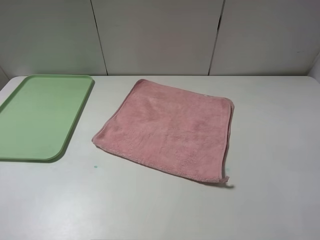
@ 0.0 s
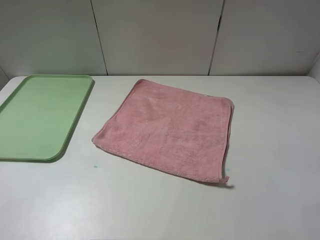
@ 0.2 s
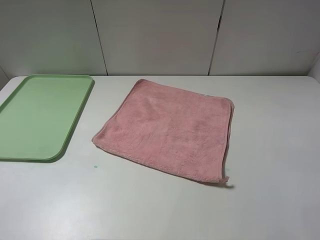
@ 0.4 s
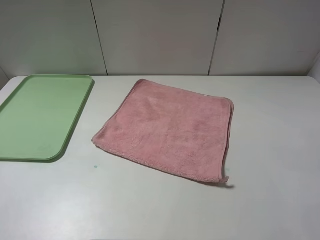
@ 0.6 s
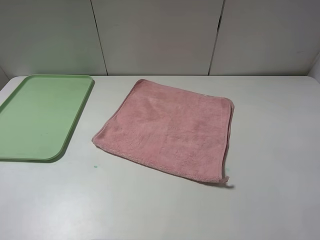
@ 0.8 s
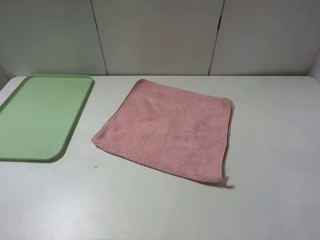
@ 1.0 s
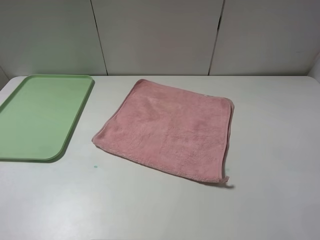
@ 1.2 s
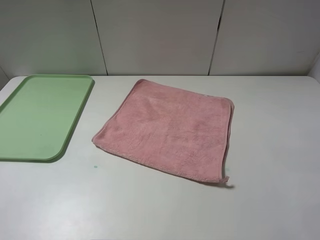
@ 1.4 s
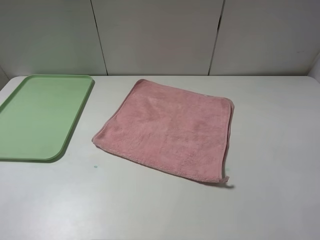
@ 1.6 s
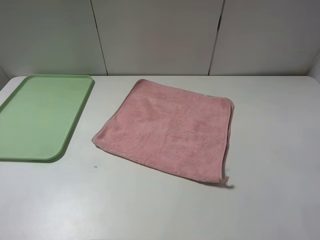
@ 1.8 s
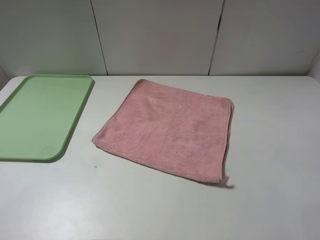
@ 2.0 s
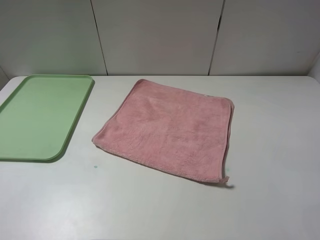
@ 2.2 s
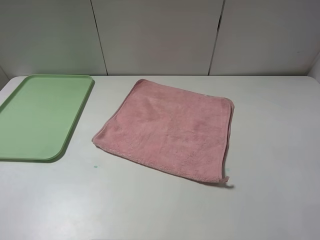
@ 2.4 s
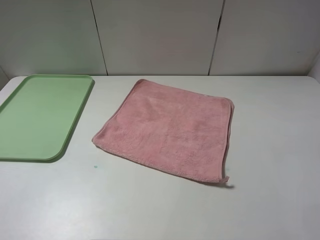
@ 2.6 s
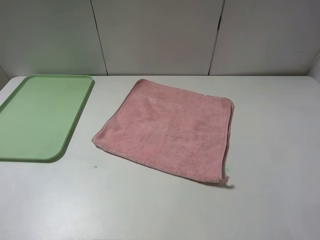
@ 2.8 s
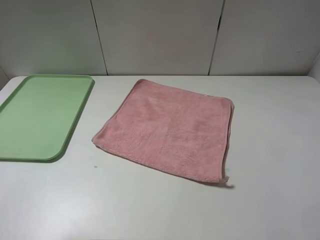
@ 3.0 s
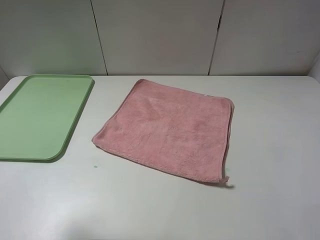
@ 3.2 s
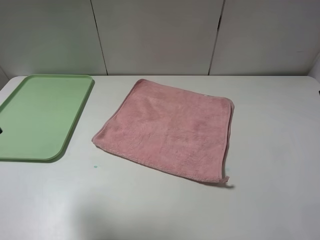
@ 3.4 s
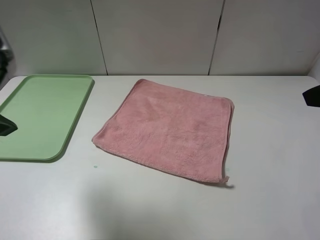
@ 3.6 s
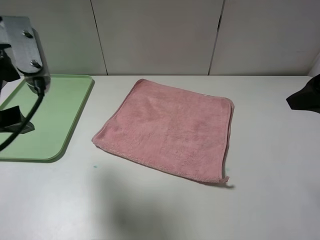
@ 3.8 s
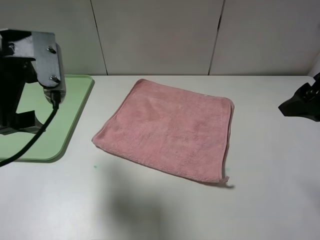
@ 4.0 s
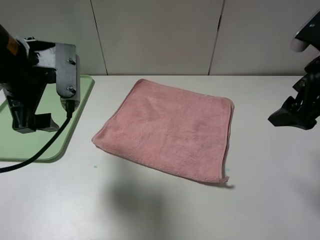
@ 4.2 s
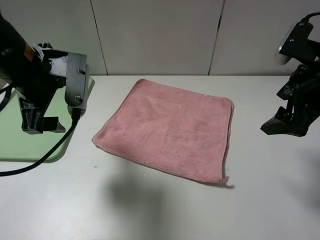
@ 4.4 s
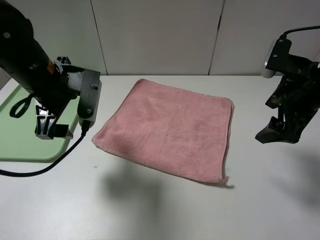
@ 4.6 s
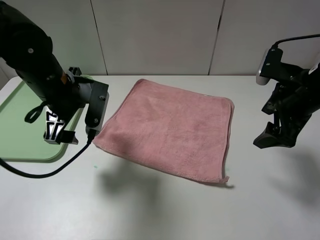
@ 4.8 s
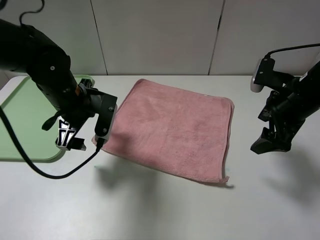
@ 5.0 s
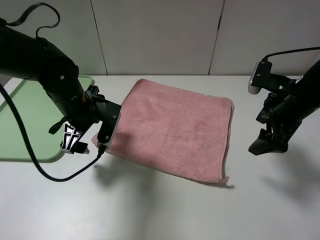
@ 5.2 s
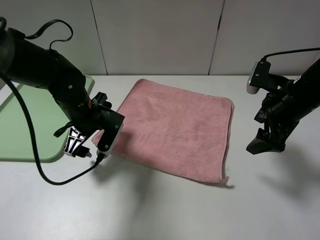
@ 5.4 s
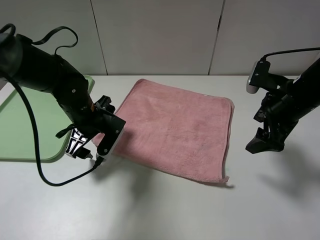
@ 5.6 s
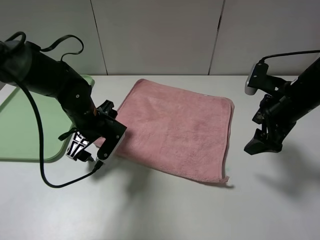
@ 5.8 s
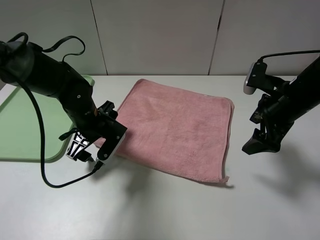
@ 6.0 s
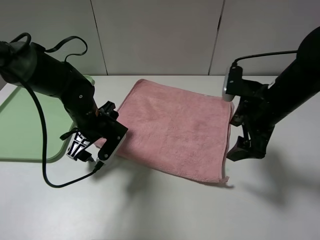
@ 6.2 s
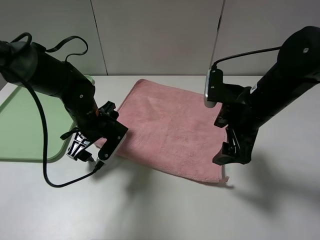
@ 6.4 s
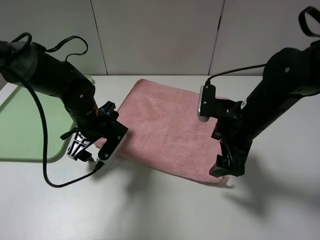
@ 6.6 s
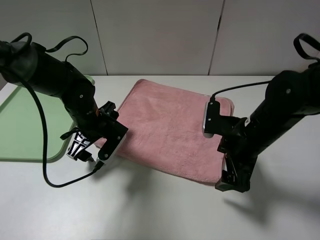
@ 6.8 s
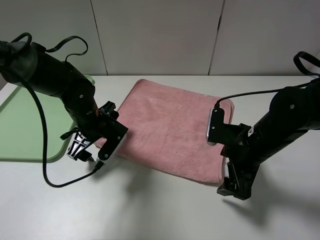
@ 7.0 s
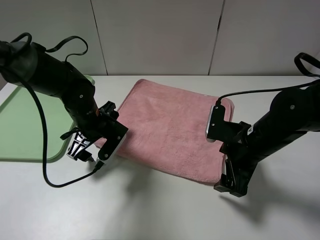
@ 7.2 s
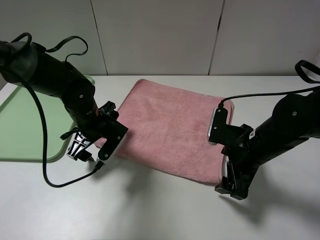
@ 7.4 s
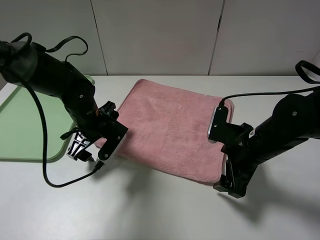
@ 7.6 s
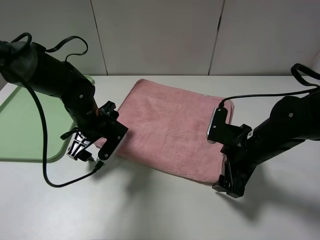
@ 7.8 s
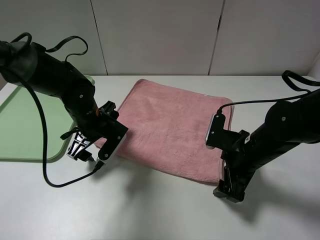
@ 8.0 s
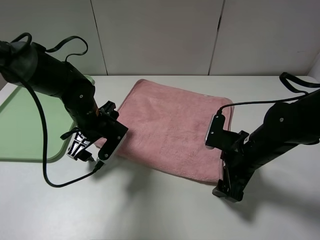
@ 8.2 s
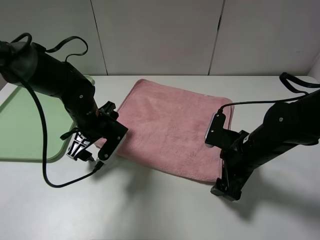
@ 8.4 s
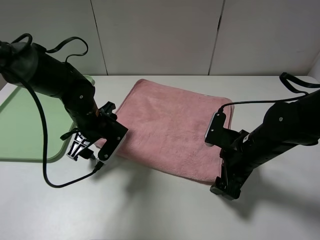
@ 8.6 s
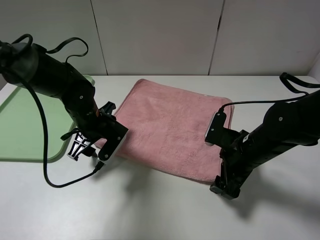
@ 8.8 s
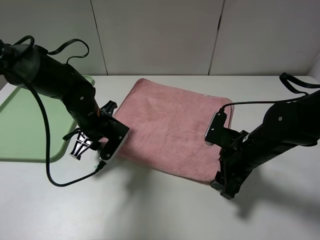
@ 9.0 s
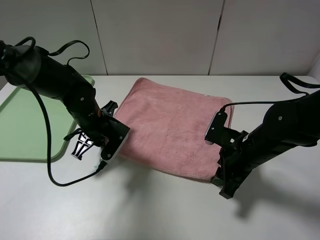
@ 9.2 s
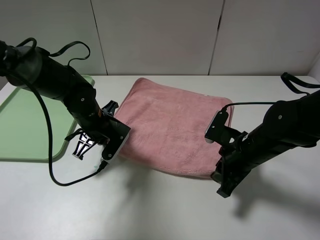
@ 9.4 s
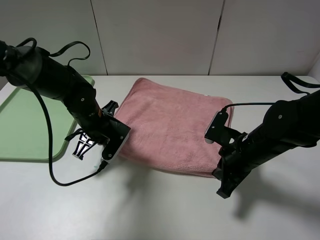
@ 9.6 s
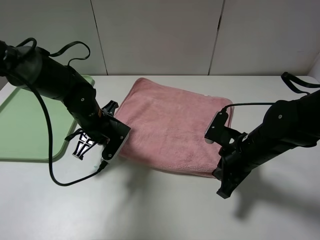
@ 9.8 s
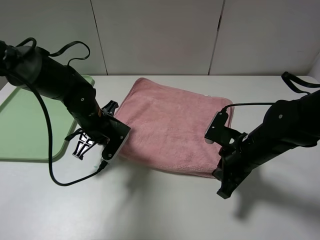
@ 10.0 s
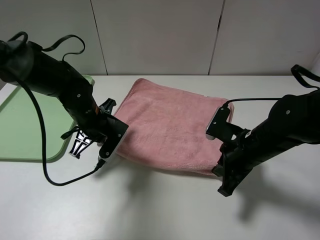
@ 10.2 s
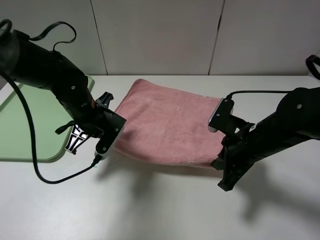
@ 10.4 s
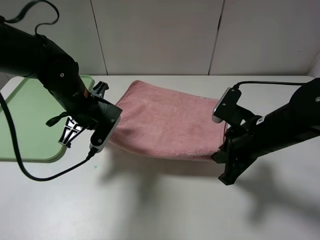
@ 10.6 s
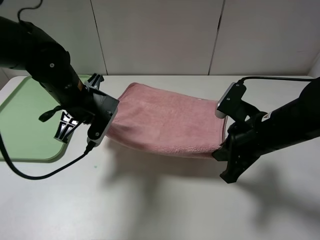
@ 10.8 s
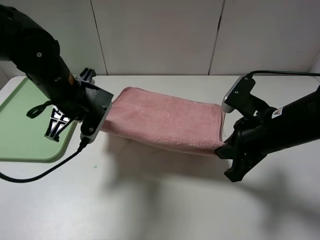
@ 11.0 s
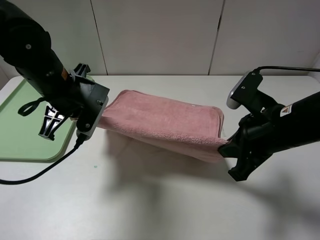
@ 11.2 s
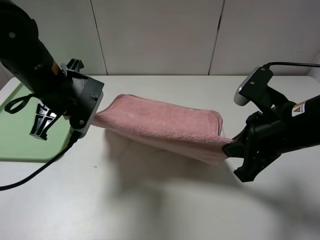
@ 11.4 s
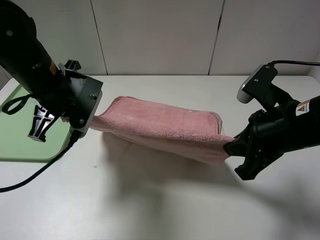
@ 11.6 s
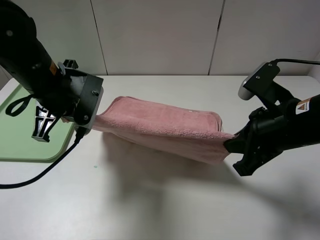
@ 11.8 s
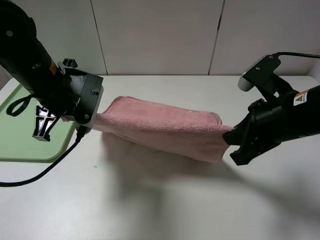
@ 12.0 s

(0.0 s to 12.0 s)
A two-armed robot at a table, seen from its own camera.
3.0 s - 4.4 s: The right gripper shifts some 20 cm forward and downward, while the left gripper goes roughly 20 cm forward, to the right and downward.
4.4 s - 6.0 s: The right gripper moves downward, about 5 cm; the left gripper shifts some 15 cm downward.
6.0 s - 7.6 s: The right gripper moves downward, to the left and backward, about 10 cm.
7.6 s - 9.0 s: The left gripper closes up.
9.0 s - 10.4 s: The right gripper closes its fingers. The left gripper closes its fingers.
10.4 s - 12.0 s: The two grippers go roughly 10 cm upward.

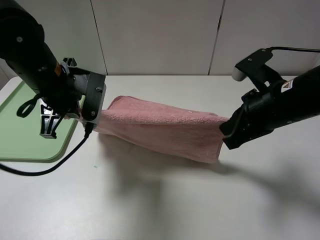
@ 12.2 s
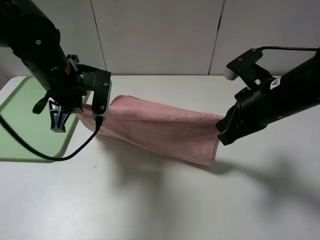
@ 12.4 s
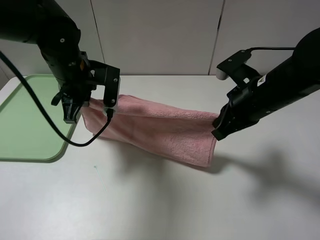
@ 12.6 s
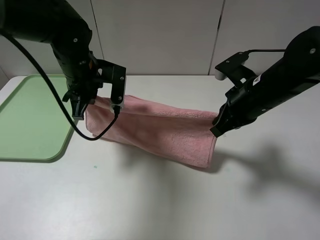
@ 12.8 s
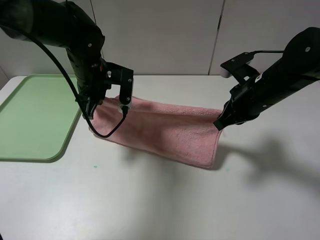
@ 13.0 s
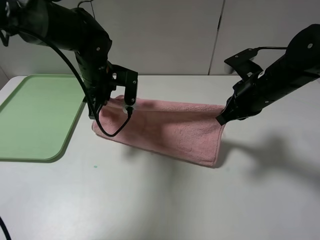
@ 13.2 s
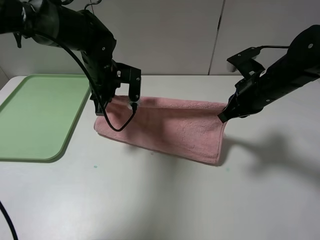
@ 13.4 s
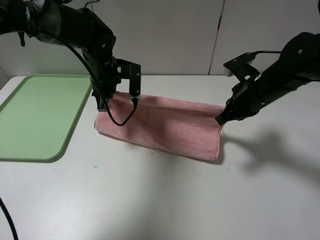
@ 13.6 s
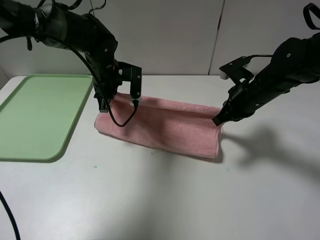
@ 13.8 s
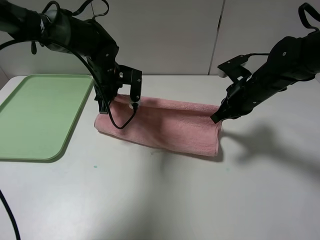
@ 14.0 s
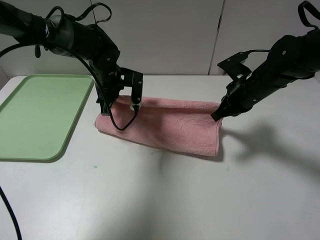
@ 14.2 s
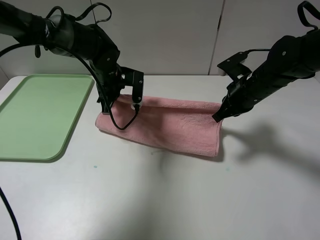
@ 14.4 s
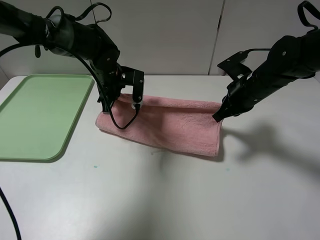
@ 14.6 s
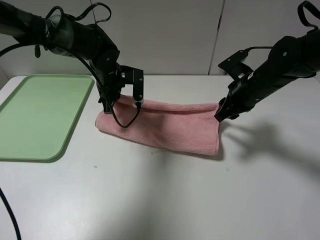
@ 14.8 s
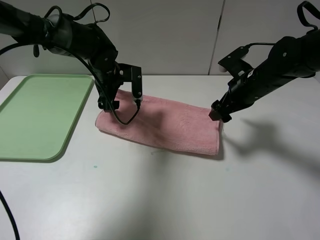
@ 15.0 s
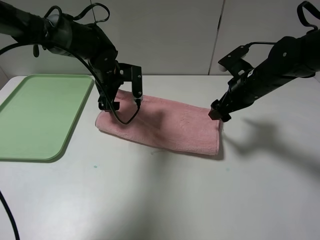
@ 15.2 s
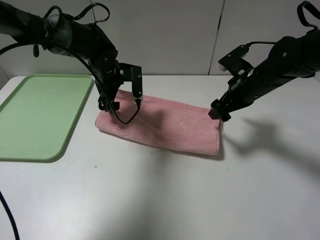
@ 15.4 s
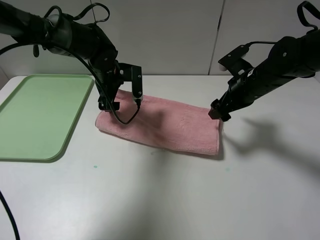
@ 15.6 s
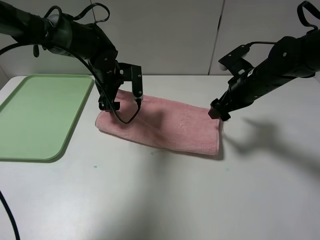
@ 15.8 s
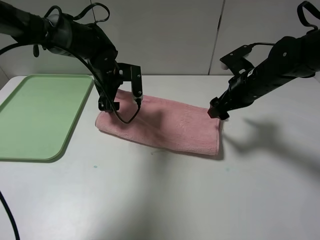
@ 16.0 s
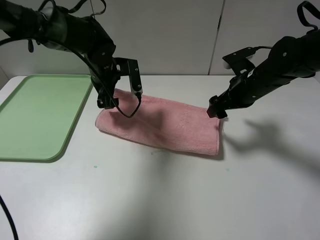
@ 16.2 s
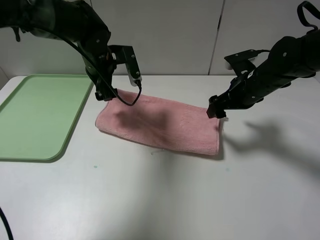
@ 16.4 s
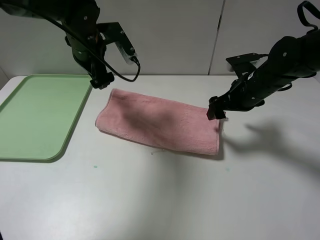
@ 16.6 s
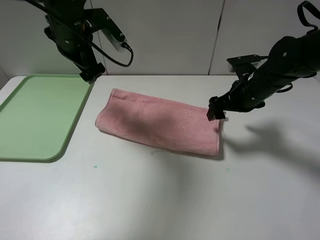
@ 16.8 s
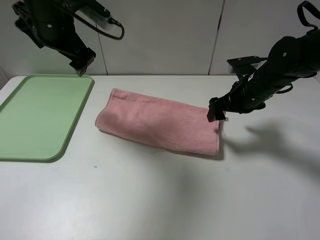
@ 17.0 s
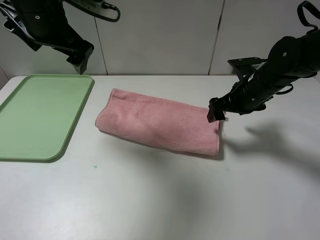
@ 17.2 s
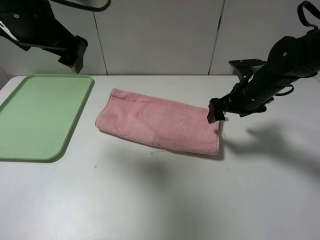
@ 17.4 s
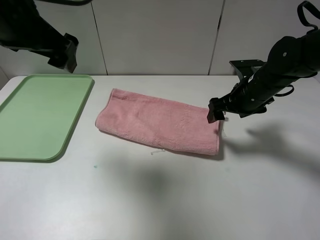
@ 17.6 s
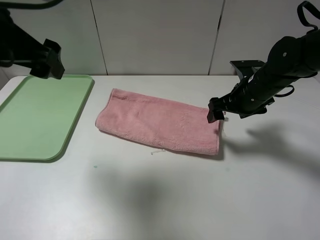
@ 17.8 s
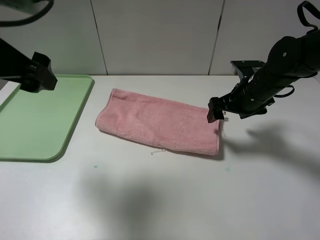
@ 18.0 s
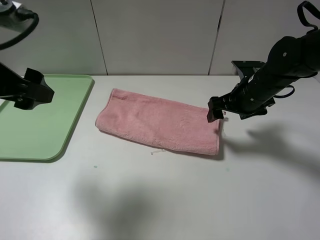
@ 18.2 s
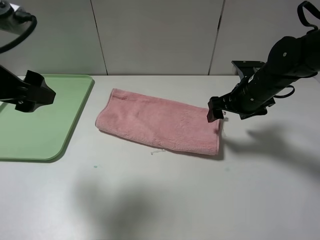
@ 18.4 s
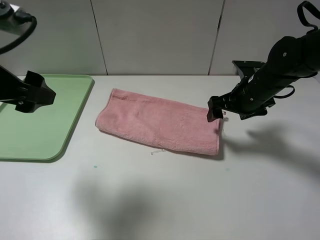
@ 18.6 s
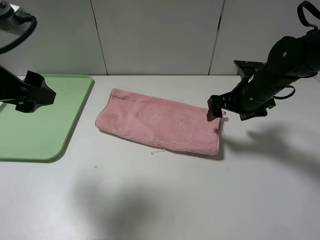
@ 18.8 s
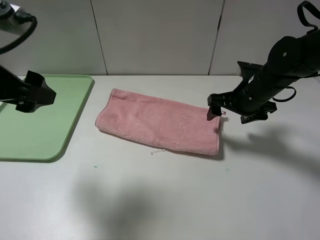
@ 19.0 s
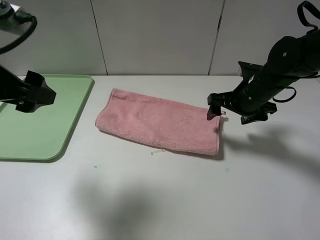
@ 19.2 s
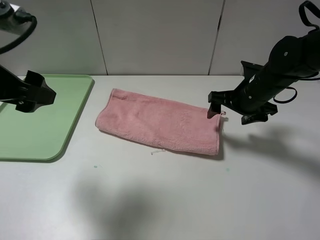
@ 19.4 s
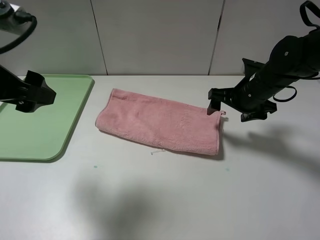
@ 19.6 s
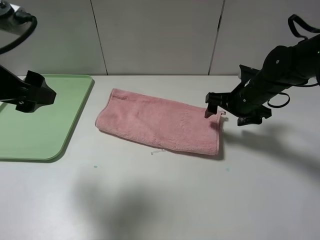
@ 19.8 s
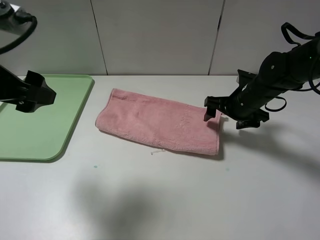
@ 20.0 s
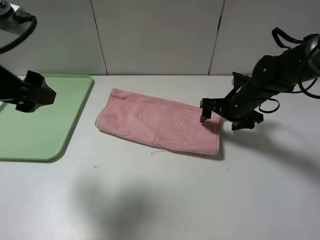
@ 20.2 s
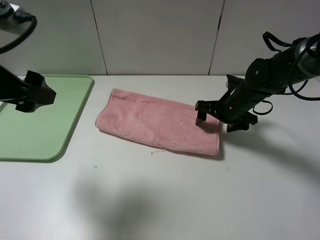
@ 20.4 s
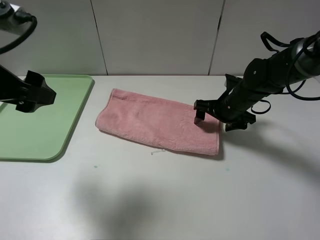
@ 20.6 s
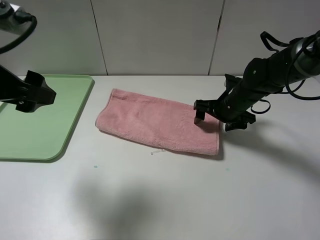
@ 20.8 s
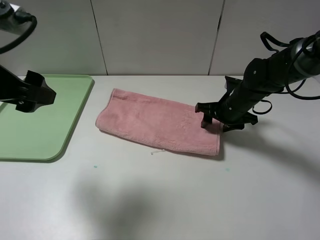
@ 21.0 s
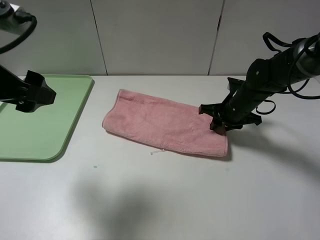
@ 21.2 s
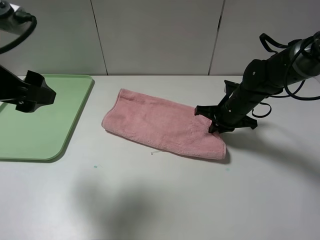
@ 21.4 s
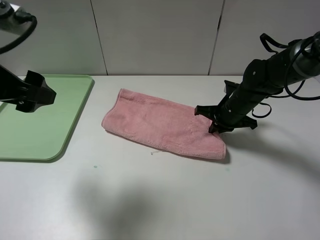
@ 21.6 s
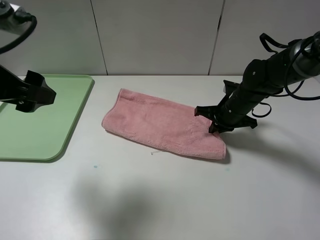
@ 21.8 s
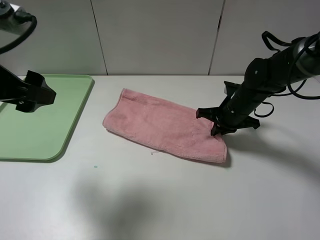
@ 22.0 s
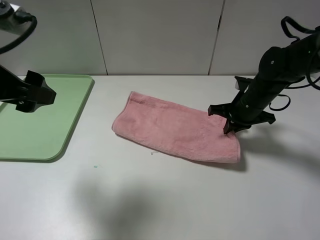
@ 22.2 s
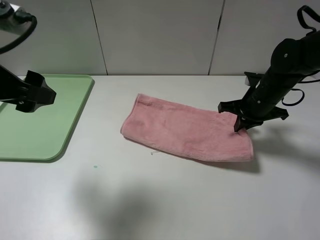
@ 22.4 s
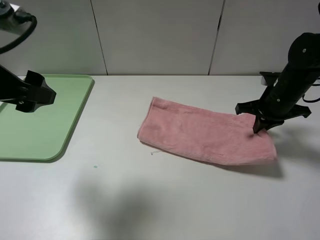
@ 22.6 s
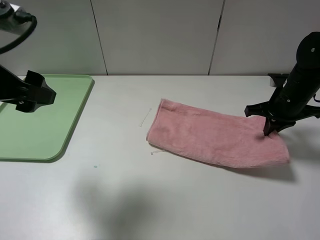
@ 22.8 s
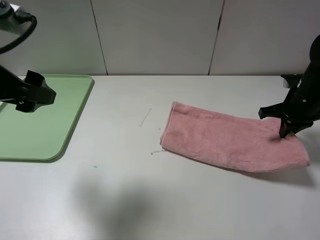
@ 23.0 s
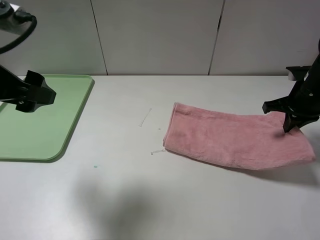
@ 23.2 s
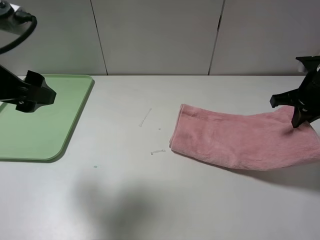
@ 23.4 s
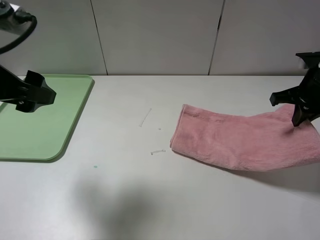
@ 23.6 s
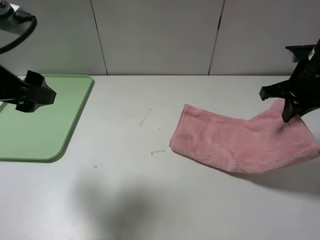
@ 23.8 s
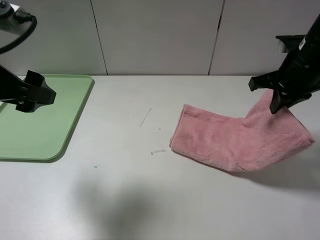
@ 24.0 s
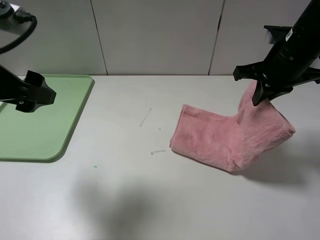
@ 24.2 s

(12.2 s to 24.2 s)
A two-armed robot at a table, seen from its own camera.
Step, 12.2 s - 15.4 s: Fold the pink towel upwards.
12.2 s - 13.8 s: Both grippers travel together forward and downward, some 15 cm.
13.8 s - 15.2 s: The left gripper opens; the right gripper opens its fingers.
15.2 s - 16.6 s: The left gripper heads upward, covering approximately 10 cm.
16.6 s - 18.2 s: The left gripper heads backward, covering some 20 cm.
18.2 s - 19.8 s: The grippers stay close to where they were, moving slightly.
19.8 s - 21.2 s: The right gripper closes.
21.2 s - 22.6 s: The right gripper is displaced to the right and upward by roughly 10 cm.
22.6 s - 24.2 s: The right gripper shifts some 10 cm upward.
